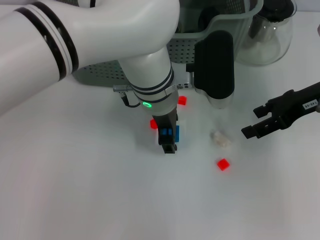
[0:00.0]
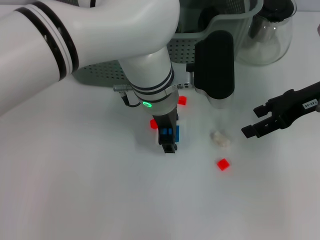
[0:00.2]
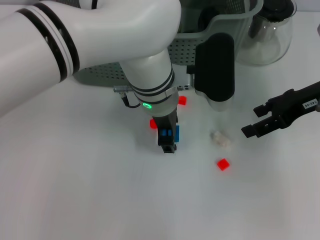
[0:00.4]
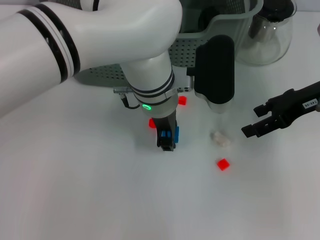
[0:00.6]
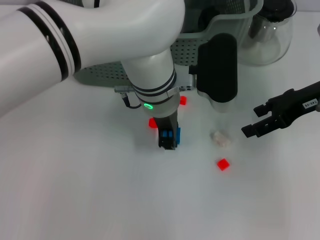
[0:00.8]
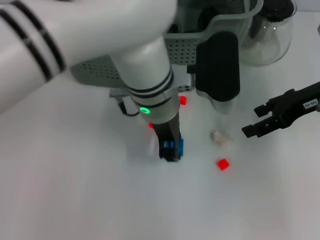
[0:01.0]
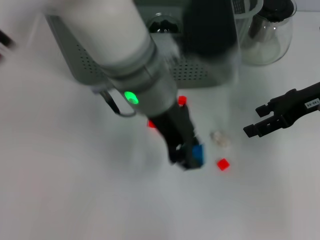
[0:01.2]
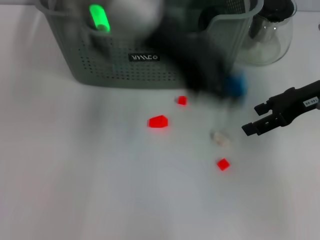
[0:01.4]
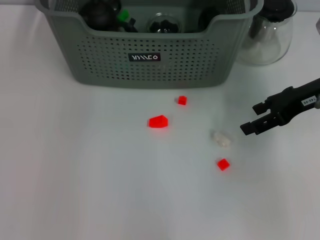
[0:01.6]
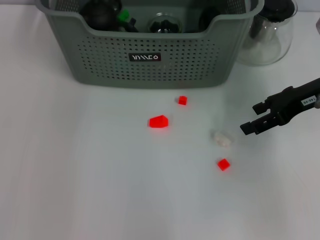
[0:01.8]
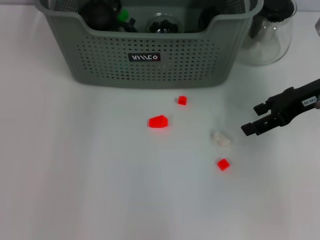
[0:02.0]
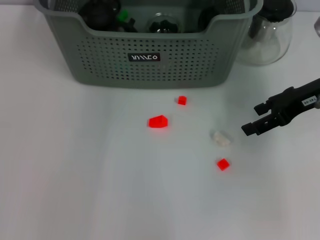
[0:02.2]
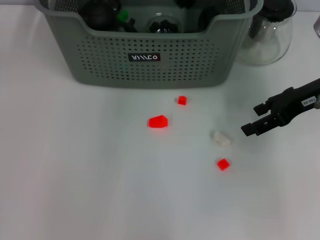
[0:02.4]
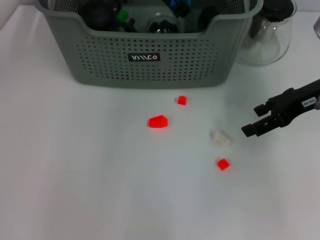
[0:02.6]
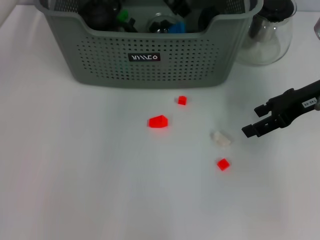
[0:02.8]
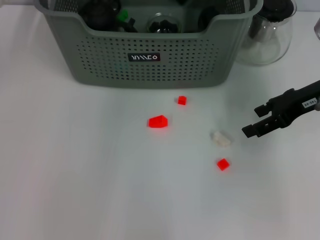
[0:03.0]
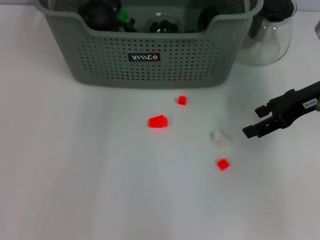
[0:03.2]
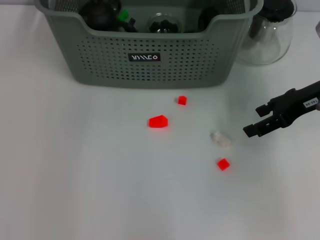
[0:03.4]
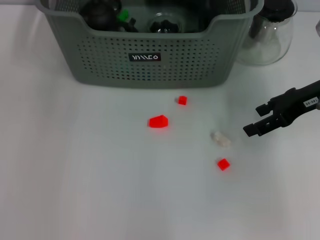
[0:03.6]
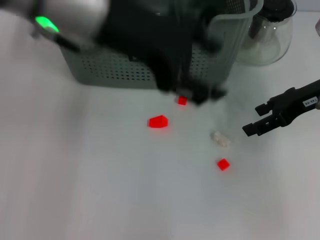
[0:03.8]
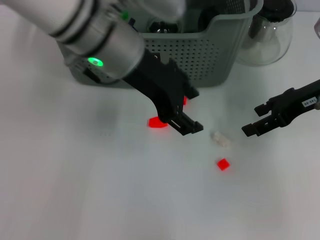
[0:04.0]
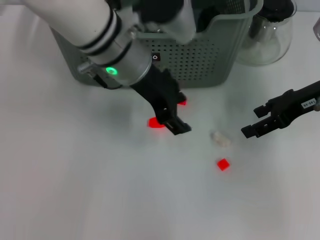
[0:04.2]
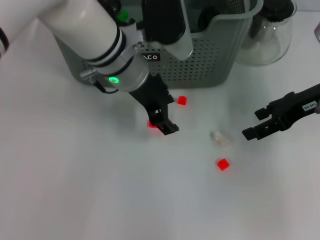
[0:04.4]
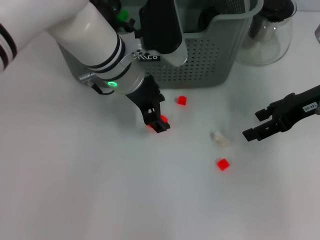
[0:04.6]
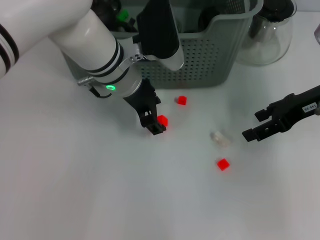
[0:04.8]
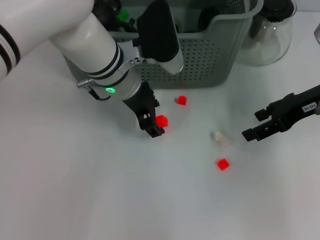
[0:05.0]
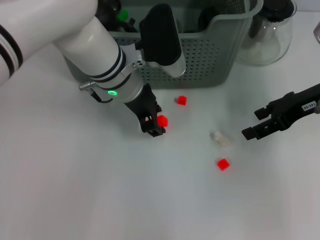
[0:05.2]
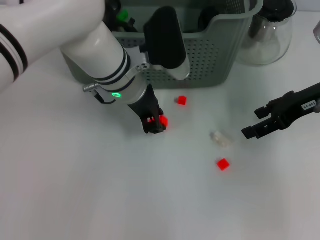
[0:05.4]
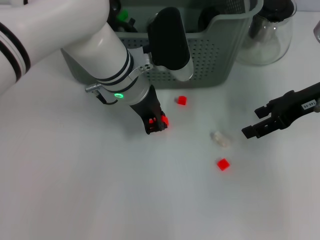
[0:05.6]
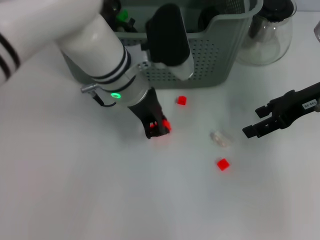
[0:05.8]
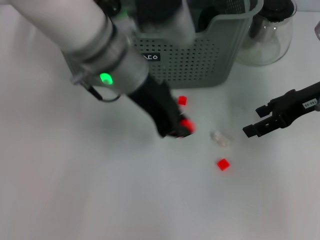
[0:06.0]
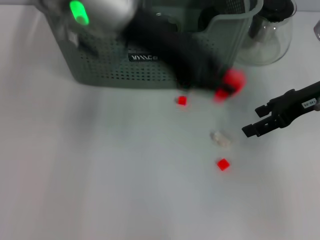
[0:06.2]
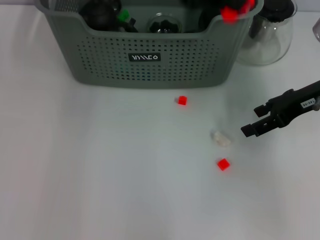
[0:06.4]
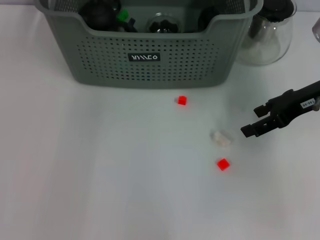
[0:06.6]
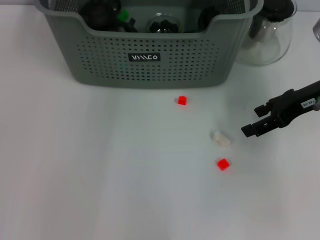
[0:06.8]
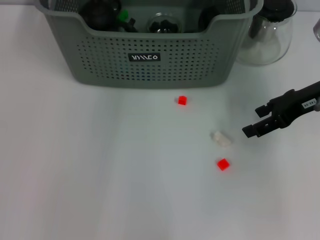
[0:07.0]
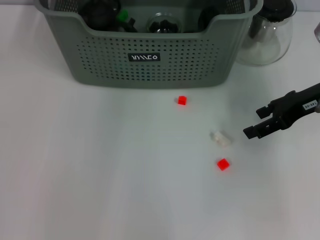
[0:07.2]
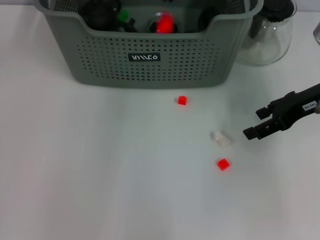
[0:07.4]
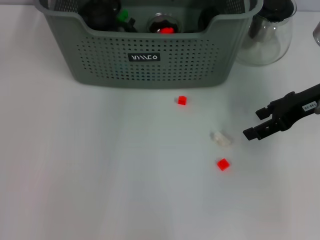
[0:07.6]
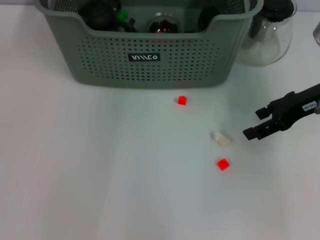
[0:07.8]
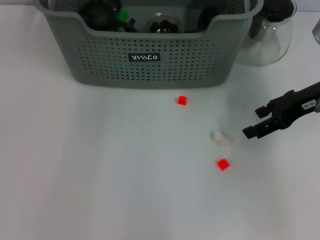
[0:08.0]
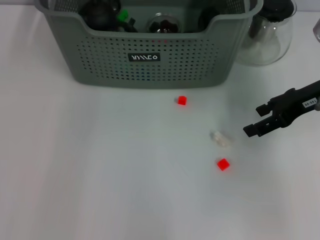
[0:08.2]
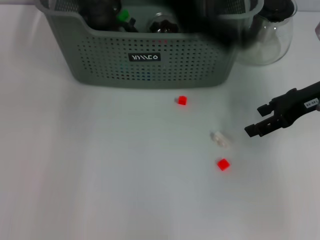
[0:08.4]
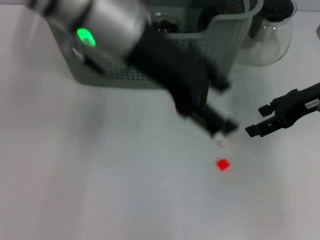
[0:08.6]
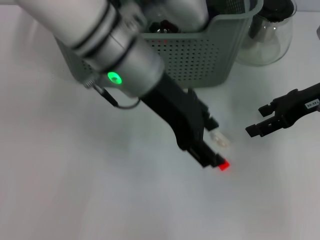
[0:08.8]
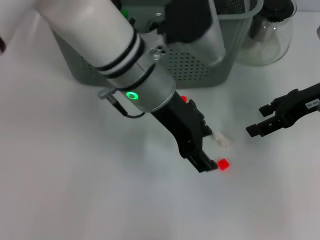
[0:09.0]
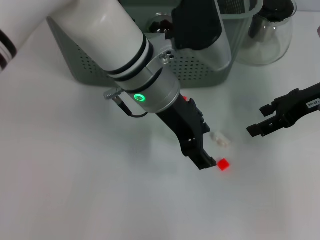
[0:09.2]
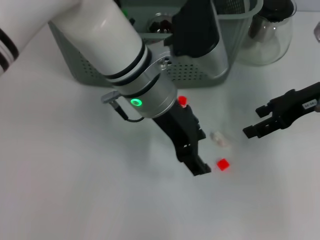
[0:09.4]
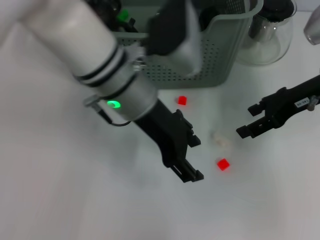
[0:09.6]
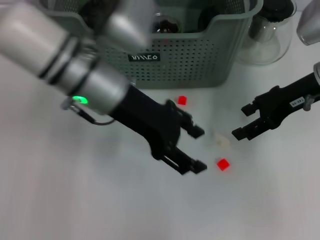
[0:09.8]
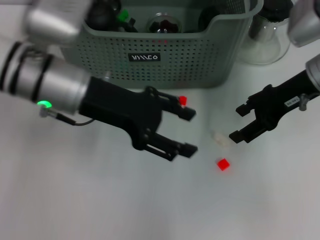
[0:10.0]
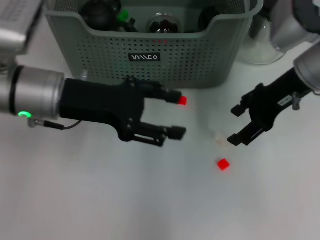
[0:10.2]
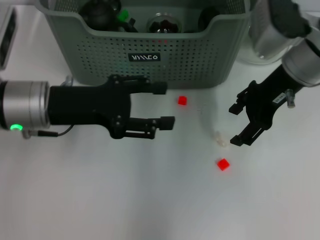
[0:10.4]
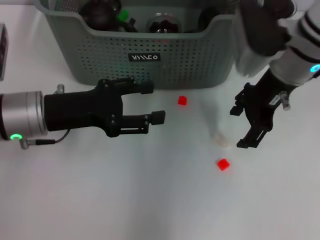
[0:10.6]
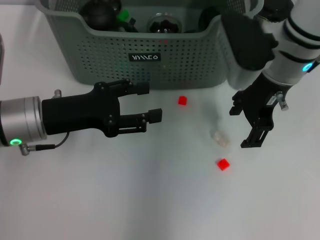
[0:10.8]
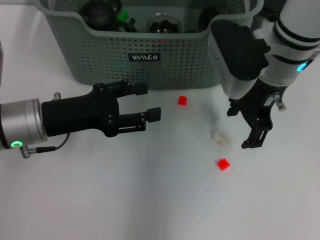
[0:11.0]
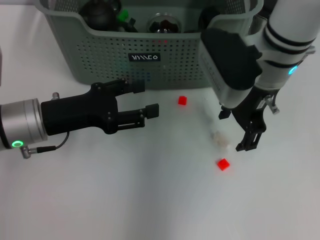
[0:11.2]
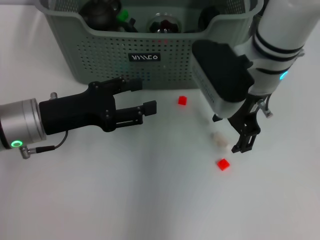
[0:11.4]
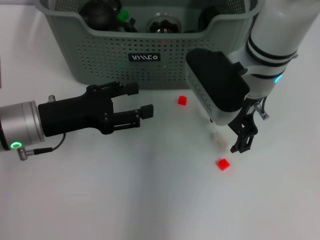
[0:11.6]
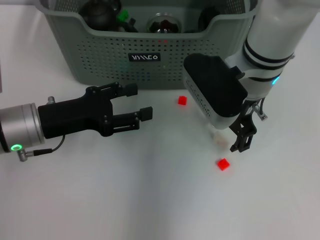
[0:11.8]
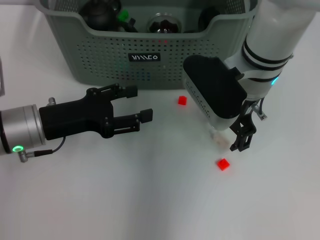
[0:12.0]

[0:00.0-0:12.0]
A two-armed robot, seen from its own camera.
Task of the whole recording: pick up the teacup on the table and place it into the storage bin, pick up the block on the table and place it into the storage bin.
Step, 0.8 to 2.8 s: Place the dark blue block in the storage box with left gripper.
Step, 3.0 to 5.4 s: Grasp the orange block with left gripper.
Step, 5.8 to 7.4 s: Place the orange block in the storage box with left gripper.
0.0 to 1.6 s: The left gripper heads upward and to the left, covering roughly 25 cm, and closes.
3.0 to 4.4 s: The left gripper shifts roughly 10 cm backward and downward.
4.4 to 6.0 s: The left gripper ends up some 5 cm from where it was, and closes.
6.0 to 7.6 s: The left gripper shifts roughly 15 cm forward.
7.6 to 9.0 s: The left gripper is displaced backward by about 15 cm, goes upward and returns, some 10 cm each way, and opens its fingers.
9.0 to 10.4 s: The left gripper travels to the left by about 15 cm, while the right gripper travels to the left by approximately 10 cm.
10.4 to 12.0 s: The left gripper shifts about 5 cm downward, while the right gripper shifts roughly 10 cm to the left.

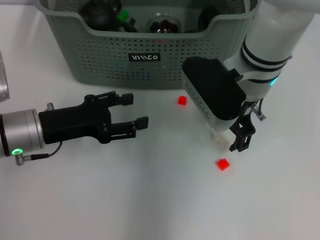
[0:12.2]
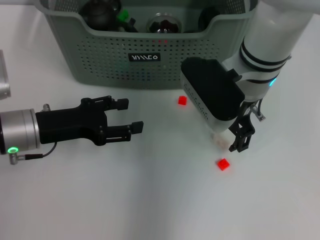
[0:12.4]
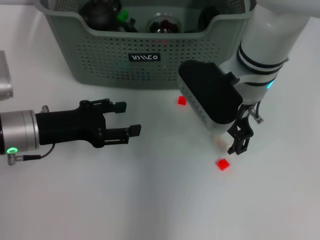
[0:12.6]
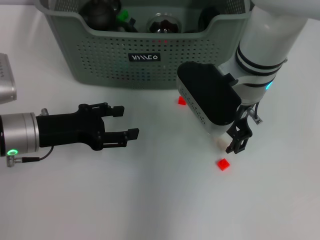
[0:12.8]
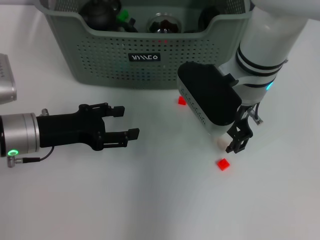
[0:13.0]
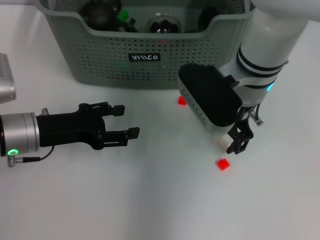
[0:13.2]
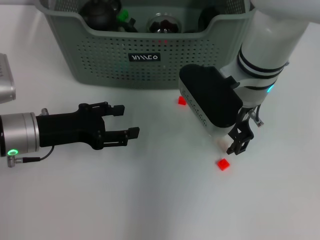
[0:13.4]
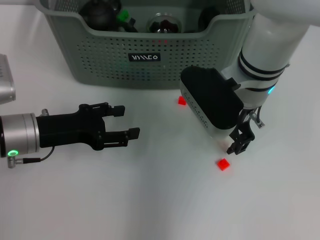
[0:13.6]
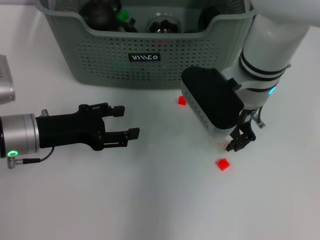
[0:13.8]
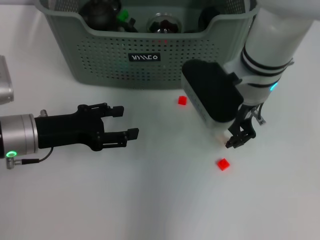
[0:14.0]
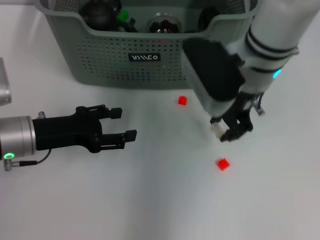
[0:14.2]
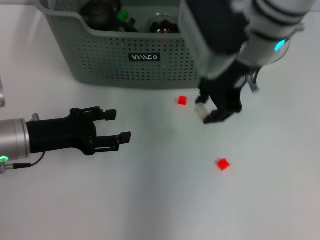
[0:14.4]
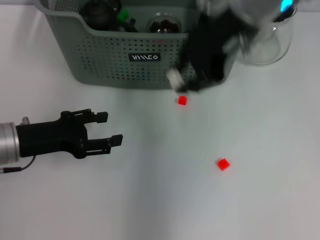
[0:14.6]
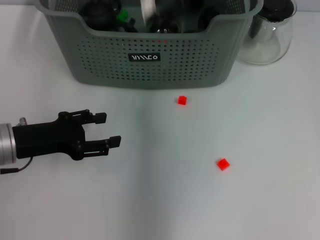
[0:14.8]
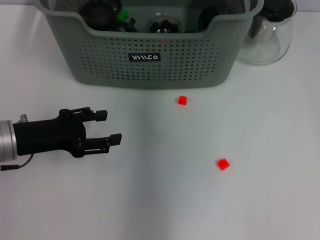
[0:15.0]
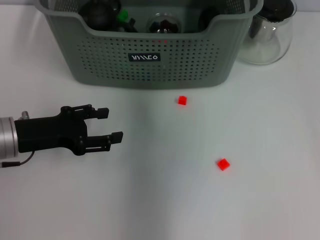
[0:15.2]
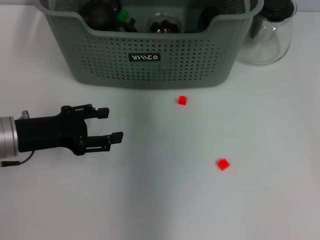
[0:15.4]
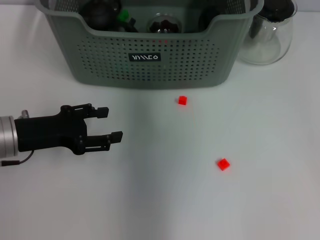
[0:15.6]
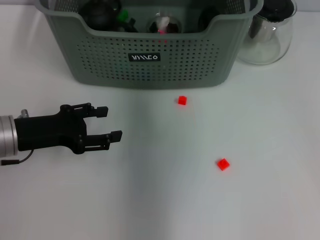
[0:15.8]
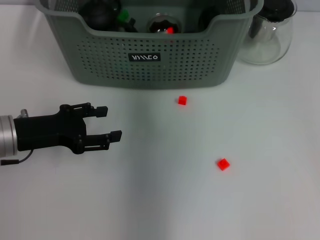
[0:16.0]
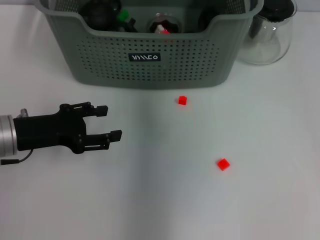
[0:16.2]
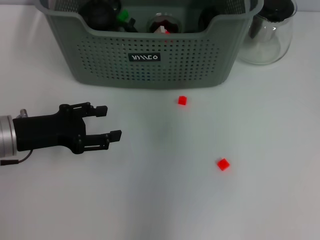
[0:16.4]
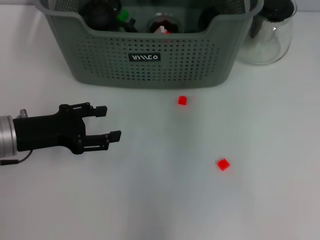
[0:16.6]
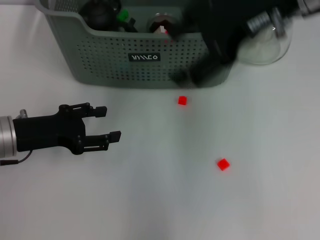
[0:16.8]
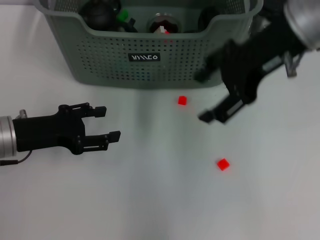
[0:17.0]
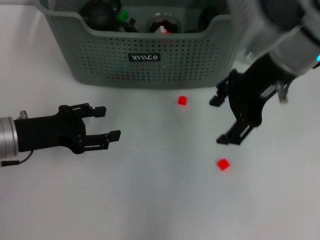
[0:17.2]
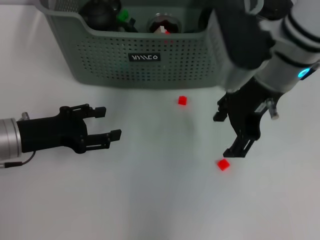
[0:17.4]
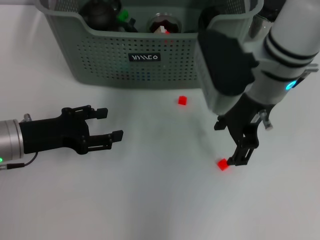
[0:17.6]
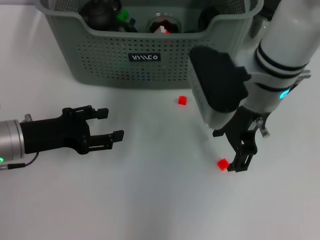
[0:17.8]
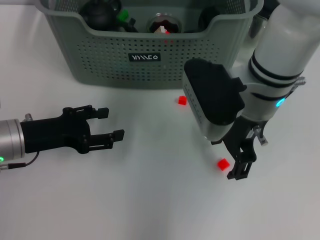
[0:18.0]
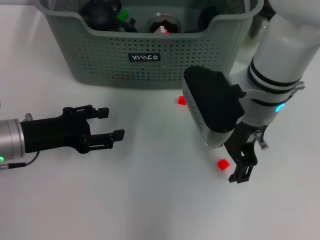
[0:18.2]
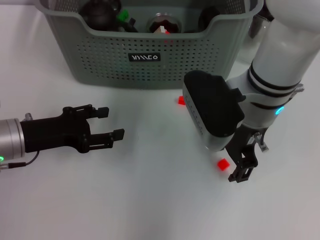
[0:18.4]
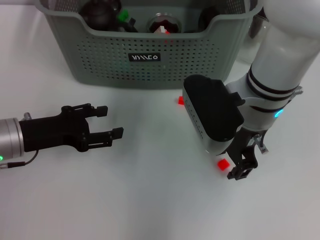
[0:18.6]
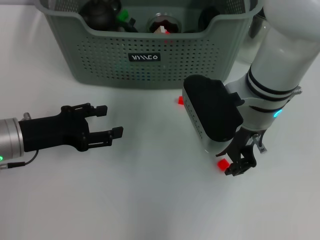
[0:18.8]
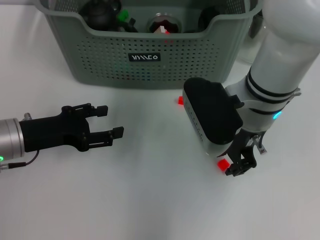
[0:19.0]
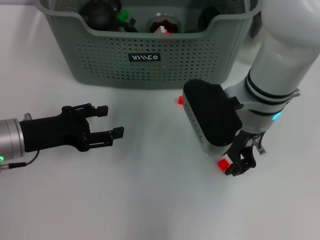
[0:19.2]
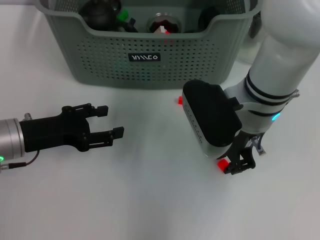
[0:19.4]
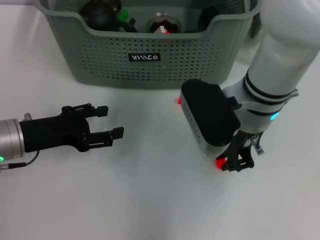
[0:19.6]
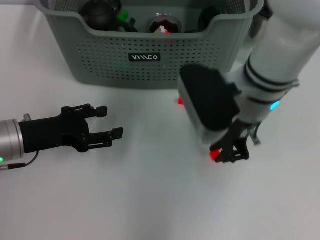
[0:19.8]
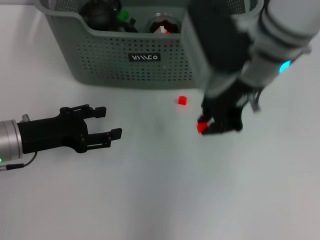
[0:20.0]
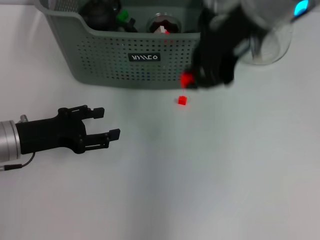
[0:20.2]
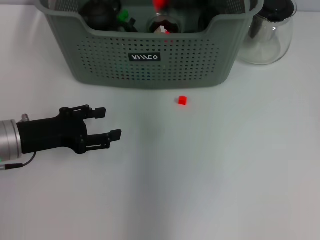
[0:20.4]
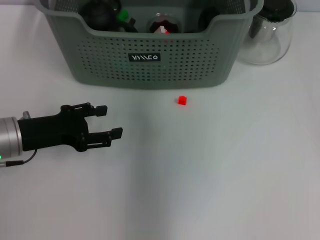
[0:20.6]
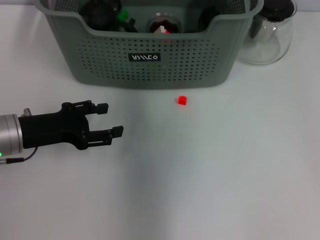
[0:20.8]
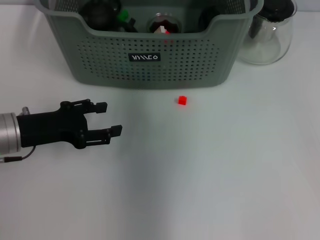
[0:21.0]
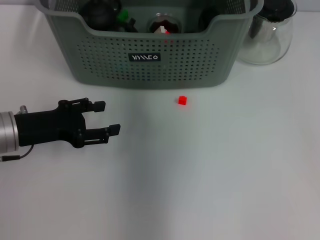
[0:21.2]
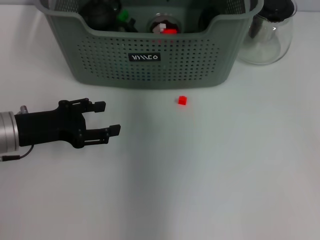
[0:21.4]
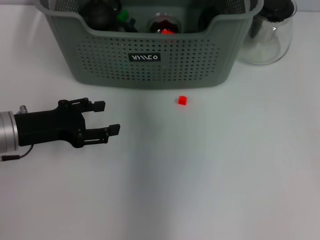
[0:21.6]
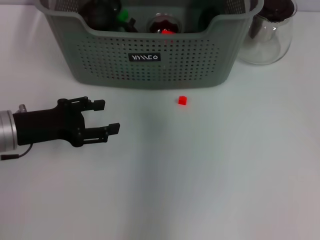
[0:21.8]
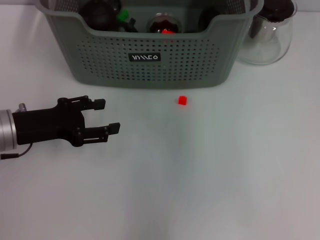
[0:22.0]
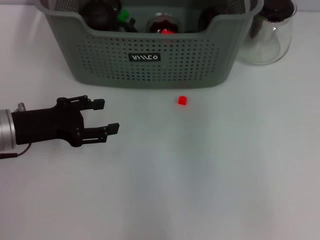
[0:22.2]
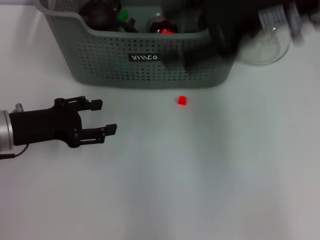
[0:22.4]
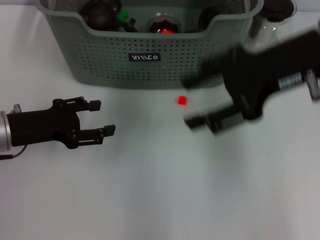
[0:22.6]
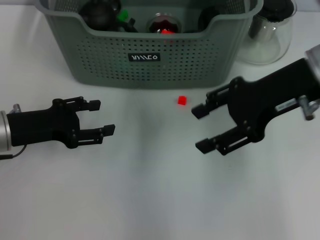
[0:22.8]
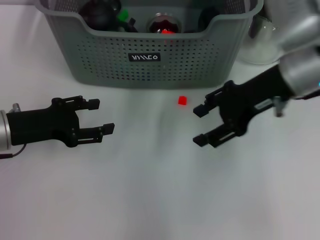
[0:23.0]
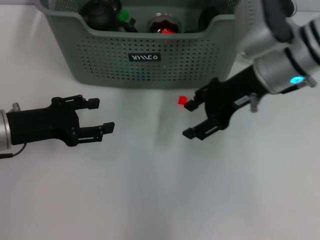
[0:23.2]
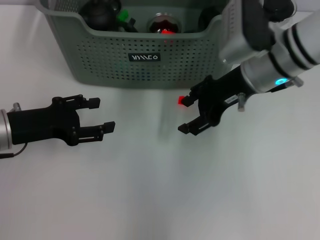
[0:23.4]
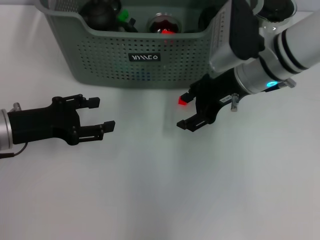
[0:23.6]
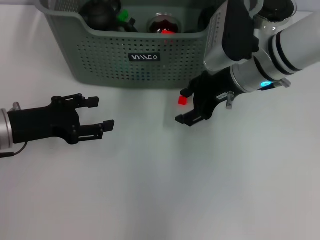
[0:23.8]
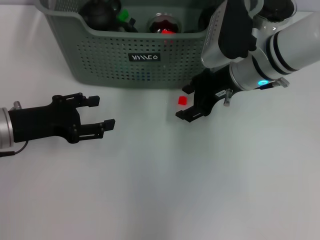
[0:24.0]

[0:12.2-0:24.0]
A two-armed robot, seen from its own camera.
Task of the whole recording: pick up the teacup on the table and place it into the storage bin, pick up the block on the table and place it into the storage bin.
Step, 14.0 to 15.8 s: Place the white block in the storage box with right gripper.
Step, 16.0 to 19.4 s: Grasp the orange block with right gripper.
Step, 19.8 to 21.2 s: Place the orange block in the storage box with right gripper.
12.2 to 13.6 s: The grippers stay close to where they were, moving slightly.
13.6 to 15.2 s: The right gripper shifts about 20 cm upward and forward, and closes.
15.2 to 16.6 s: The right gripper travels backward by approximately 5 cm, and opens its fingers.
16.6 to 18.2 s: The right gripper heads downward, covering roughly 15 cm.
18.2 to 19.6 s: The right gripper closes.
19.6 to 21.0 s: The right gripper is displaced forward and upward by roughly 20 cm.
21.0 to 22.6 s: The right gripper is displaced backward and to the right by approximately 20 cm, and opens.
22.6 to 24.0 s: The right gripper goes some 15 cm downward, forward and to the left.
